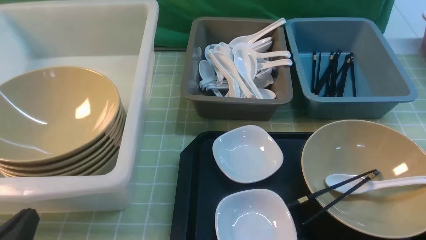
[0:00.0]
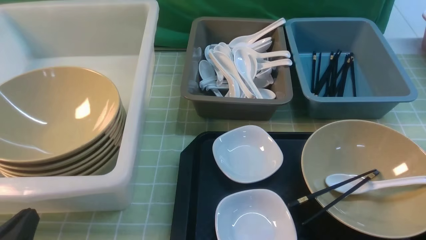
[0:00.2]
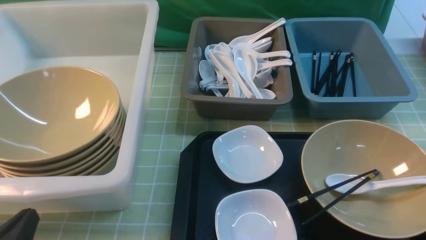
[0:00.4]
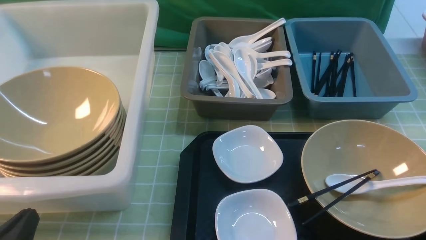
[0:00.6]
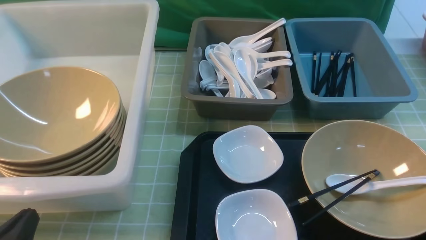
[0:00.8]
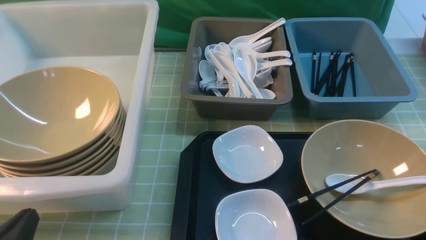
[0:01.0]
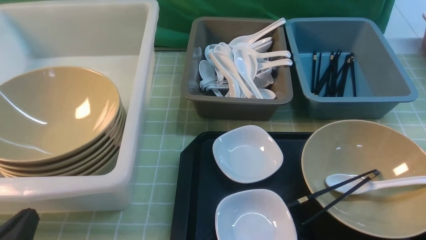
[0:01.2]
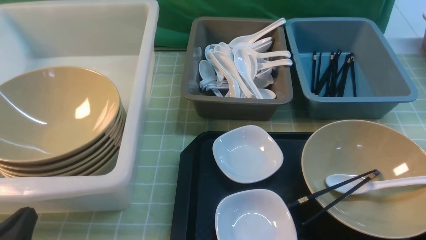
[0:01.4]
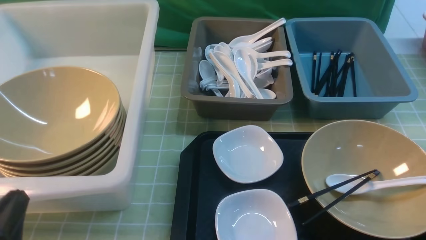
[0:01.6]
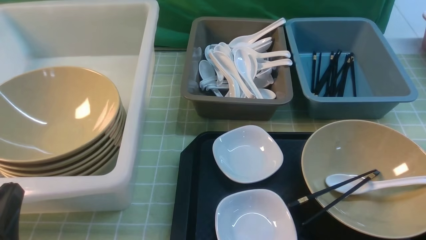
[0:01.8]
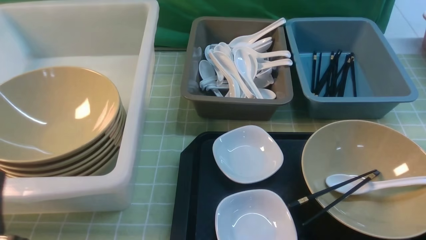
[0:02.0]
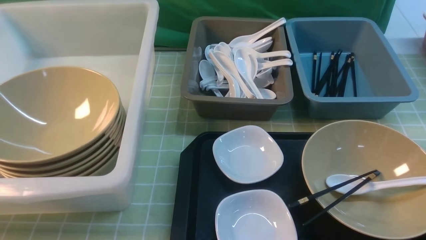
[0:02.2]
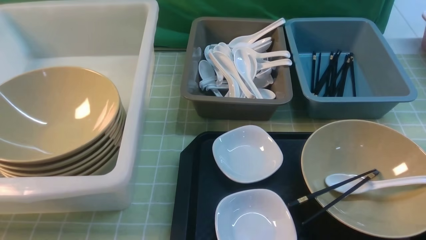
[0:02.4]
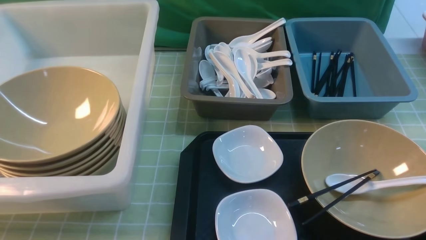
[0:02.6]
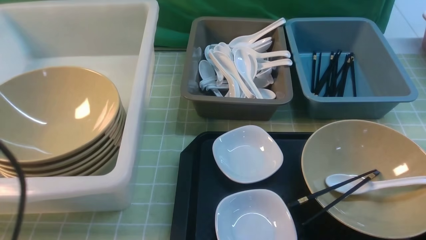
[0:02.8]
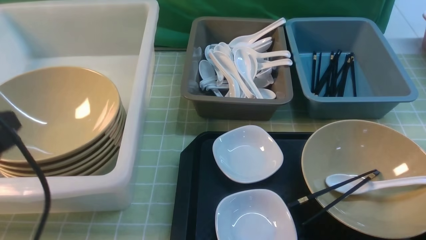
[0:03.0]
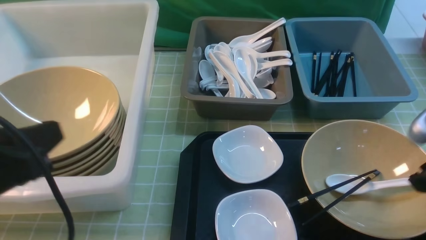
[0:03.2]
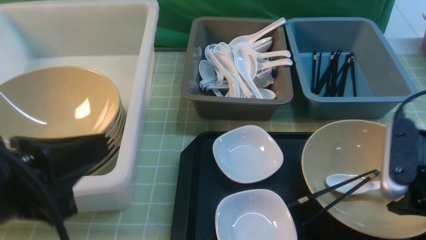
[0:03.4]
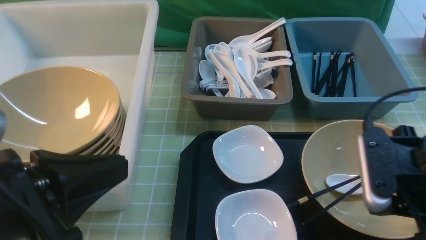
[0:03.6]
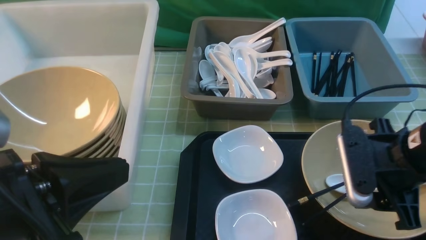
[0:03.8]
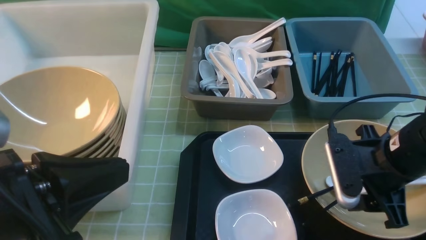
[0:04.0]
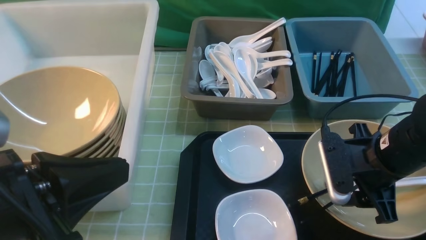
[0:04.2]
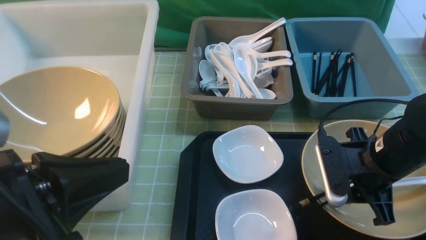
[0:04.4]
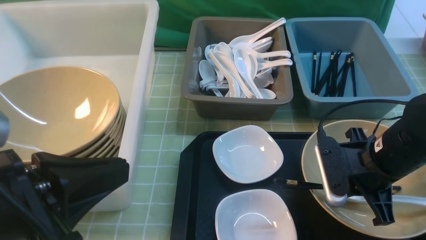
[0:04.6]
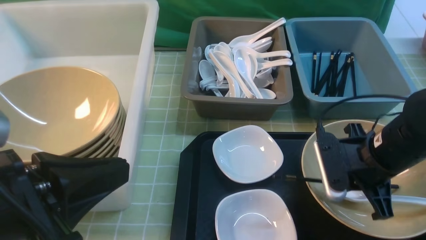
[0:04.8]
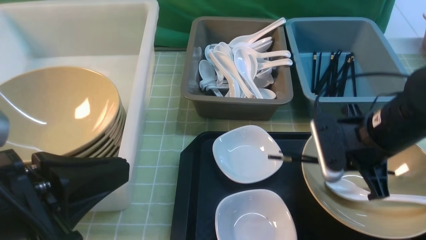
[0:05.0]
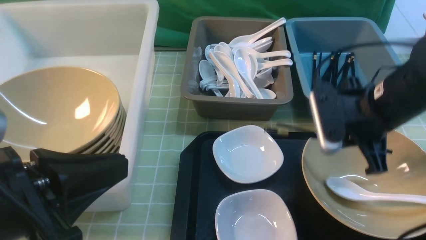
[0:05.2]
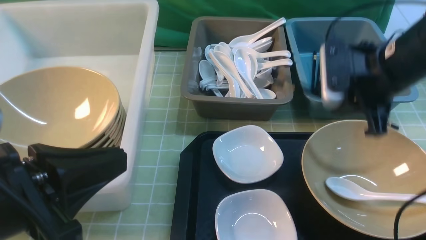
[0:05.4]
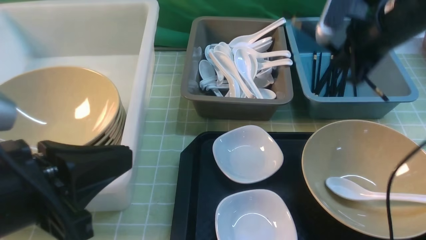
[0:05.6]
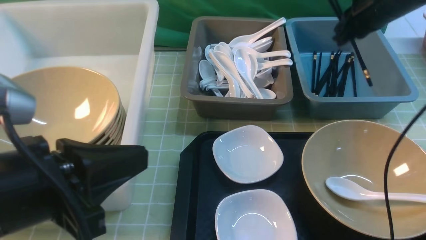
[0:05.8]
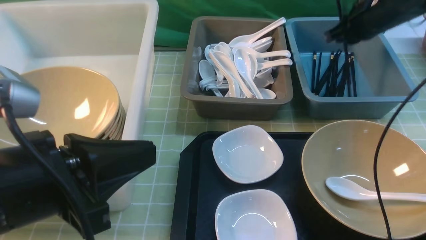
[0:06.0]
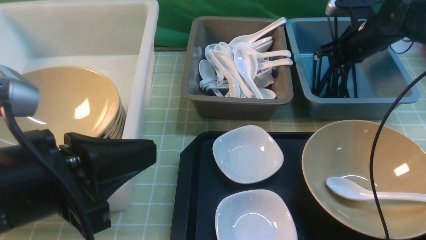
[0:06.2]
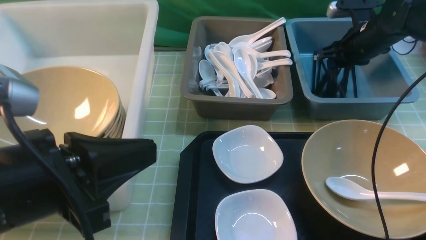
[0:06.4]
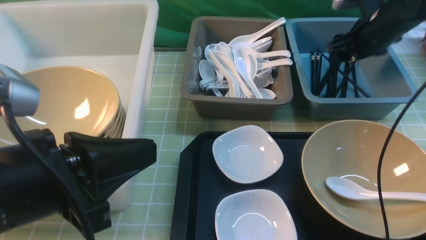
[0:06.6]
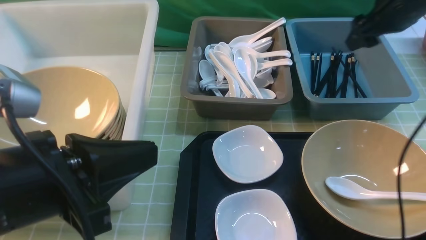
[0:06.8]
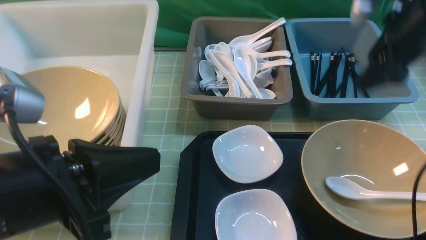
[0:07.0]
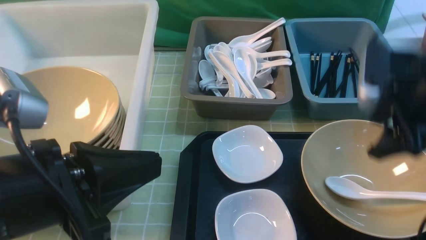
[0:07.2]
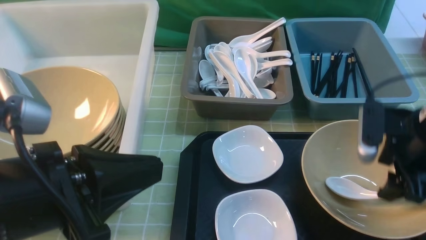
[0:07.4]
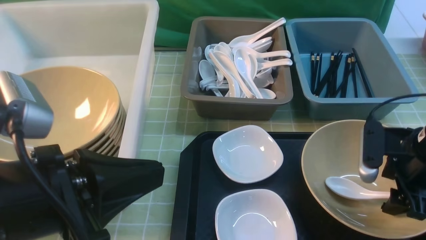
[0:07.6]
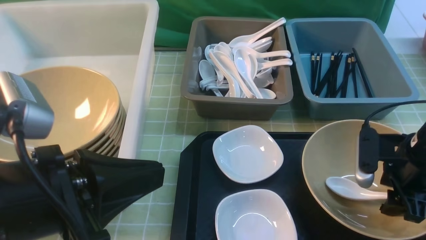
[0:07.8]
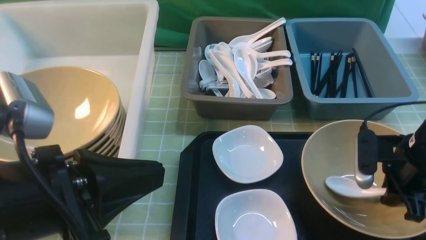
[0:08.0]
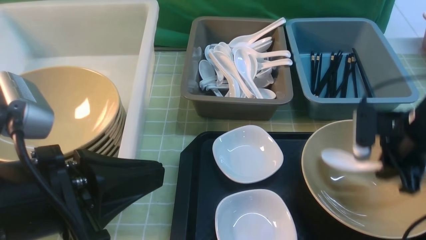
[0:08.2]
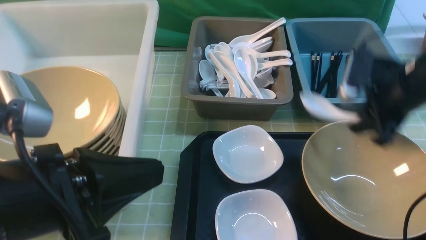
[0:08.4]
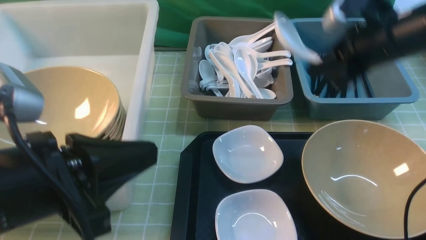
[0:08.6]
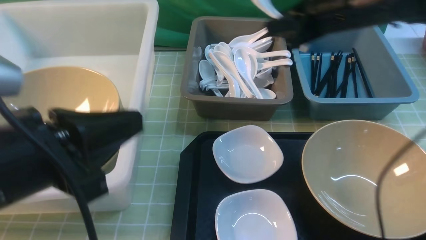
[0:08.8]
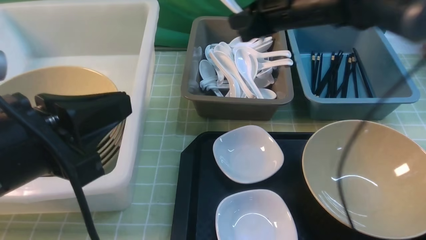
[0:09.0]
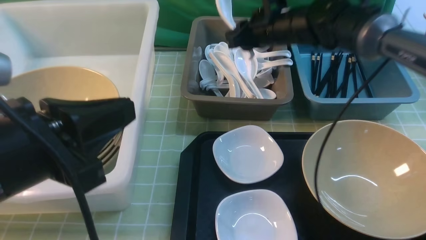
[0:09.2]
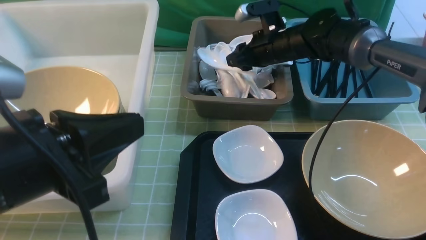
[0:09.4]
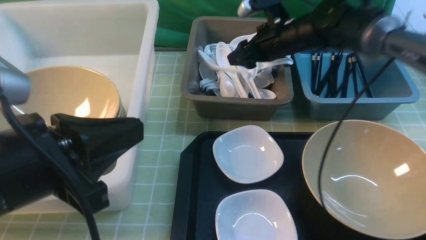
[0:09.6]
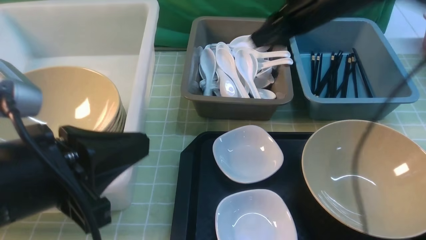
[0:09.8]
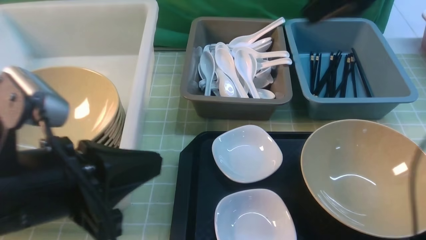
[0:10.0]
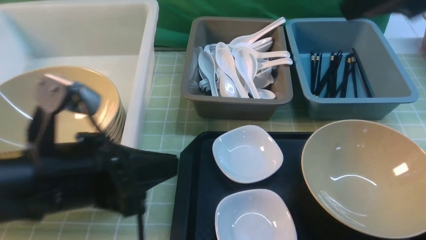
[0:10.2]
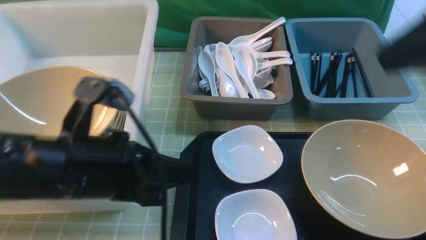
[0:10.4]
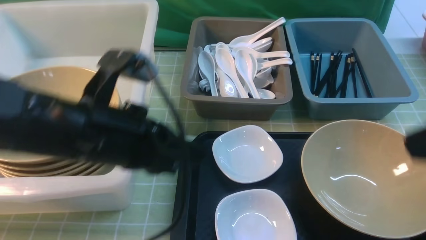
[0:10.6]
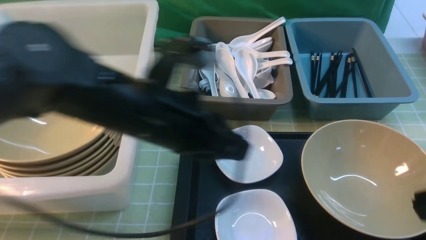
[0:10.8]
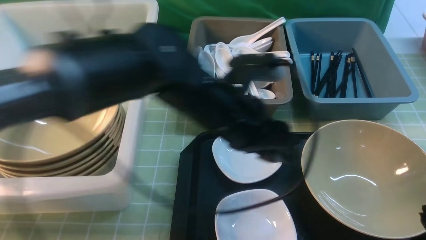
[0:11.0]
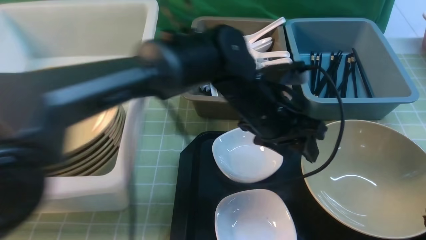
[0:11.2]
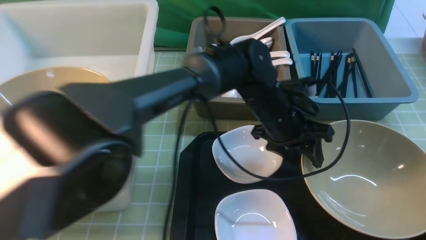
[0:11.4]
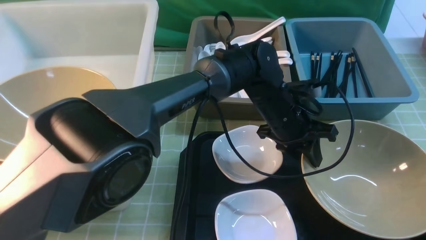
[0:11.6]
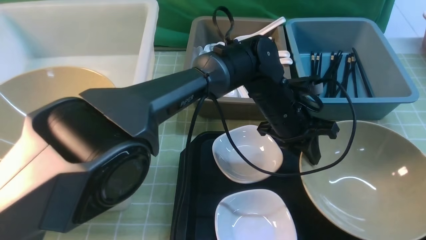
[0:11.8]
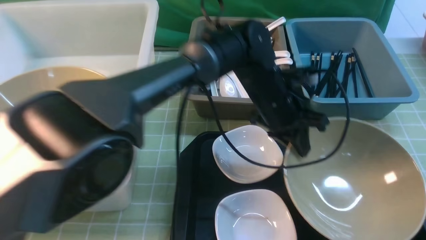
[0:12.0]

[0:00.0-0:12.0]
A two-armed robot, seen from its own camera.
Task of the whole recording: on green table put chopsticks spoon bowls plates into blue grey white boxes.
Step, 0.0 to 5.4 s: use the right arm to grab the chopsticks.
Step, 5.6 to 6.6 s: use the right arm to put the chopsticks into the small storage box on the right.
Step, 6.8 to 8.2 s: use the right arm to grab the soup spoon in the middle.
Step, 8.4 to 9.8 s: use the right arm to put the soup spoon into the small storage box in the middle.
0.0 to 1.6 s: The grippers move only a little.
1.6 to 3.0 s: The left gripper goes some 15 cm upward.
3.0 to 4.4 s: The left gripper goes some 5 cm to the right. Meanwhile the right gripper heads downward, to the left and forward, covering about 15 cm, and opens, then closes again.
4.4 to 6.0 s: The right gripper travels forward by roughly 25 cm.
6.0 to 7.6 s: The right gripper travels backward by some 20 cm, and opens its fingers.
7.6 to 9.0 s: The right gripper moves forward, to the left and upward, some 25 cm, and closes its fingers.
9.0 to 10.4 s: The left gripper ends up about 5 cm from where it was. The right gripper is displaced backward and upward by about 30 cm, and opens, then closes once more.
10.4 to 12.0 s: The right gripper moves backward and downward, approximately 15 cm. The left gripper travels to the right and forward by about 30 cm, and opens, then closes once more.

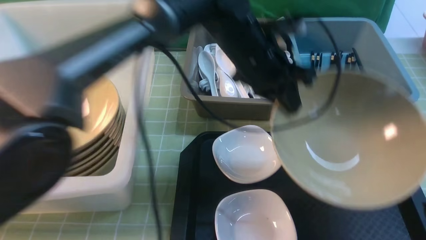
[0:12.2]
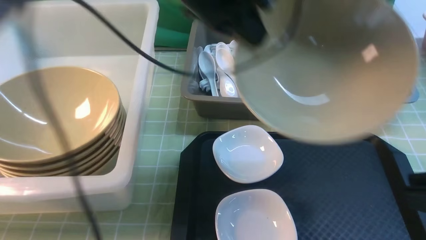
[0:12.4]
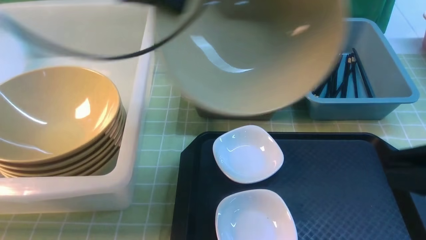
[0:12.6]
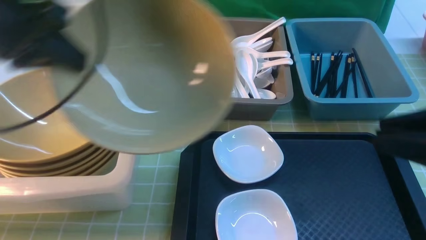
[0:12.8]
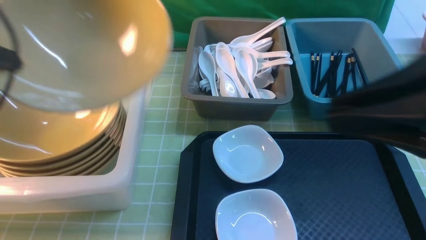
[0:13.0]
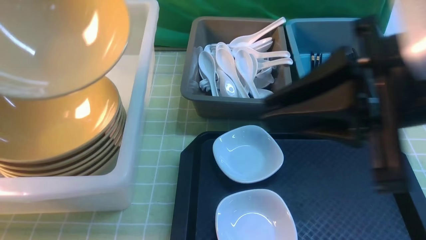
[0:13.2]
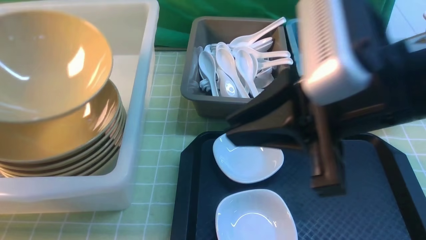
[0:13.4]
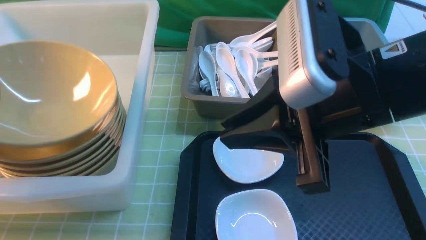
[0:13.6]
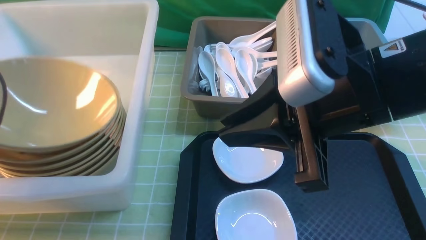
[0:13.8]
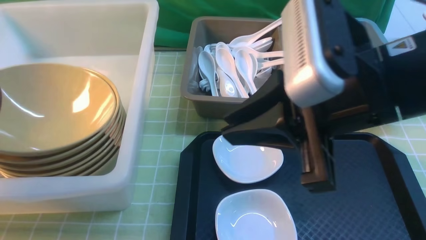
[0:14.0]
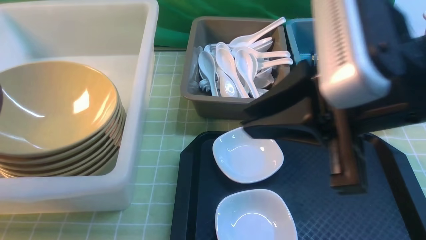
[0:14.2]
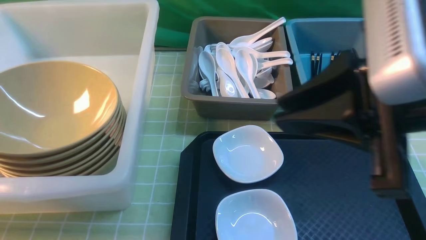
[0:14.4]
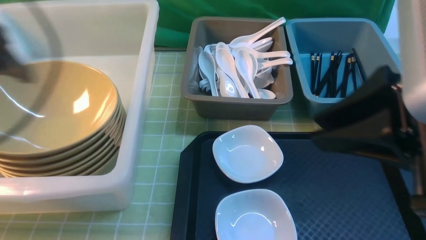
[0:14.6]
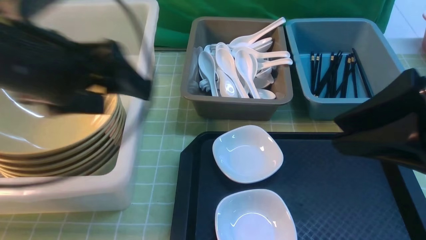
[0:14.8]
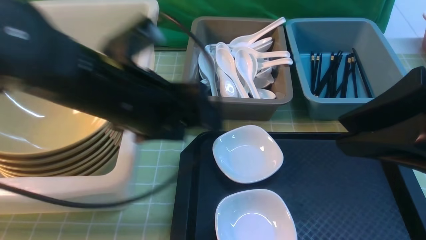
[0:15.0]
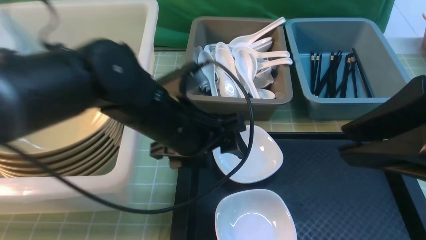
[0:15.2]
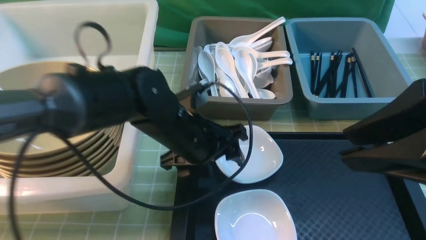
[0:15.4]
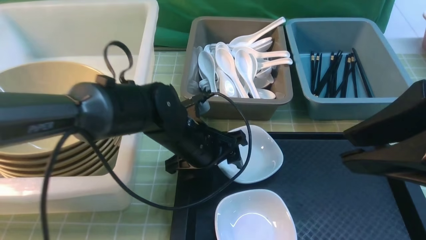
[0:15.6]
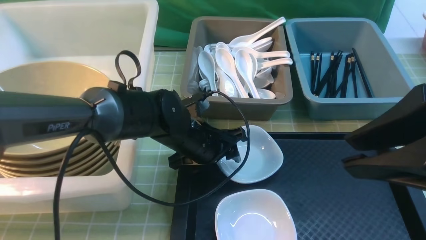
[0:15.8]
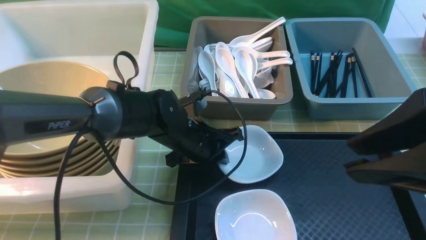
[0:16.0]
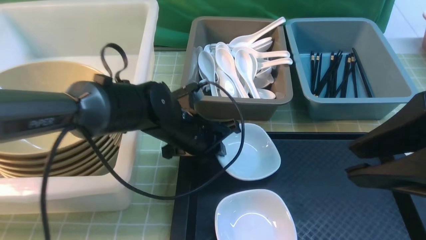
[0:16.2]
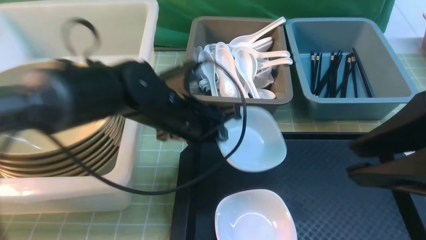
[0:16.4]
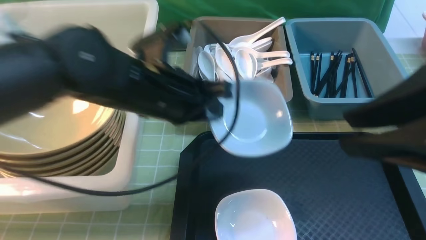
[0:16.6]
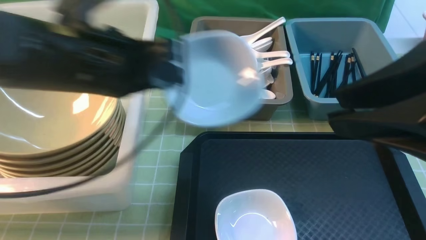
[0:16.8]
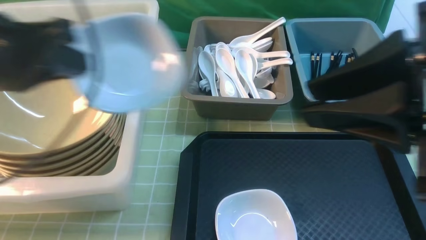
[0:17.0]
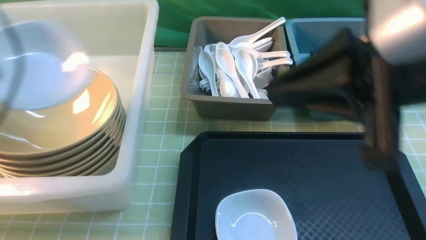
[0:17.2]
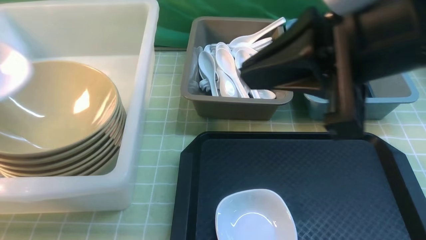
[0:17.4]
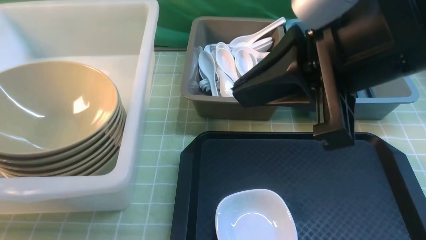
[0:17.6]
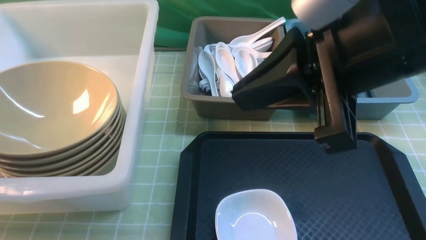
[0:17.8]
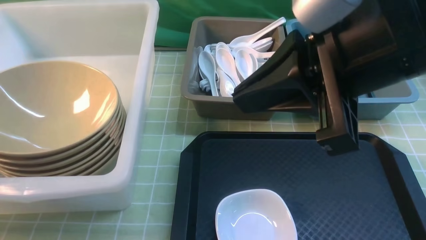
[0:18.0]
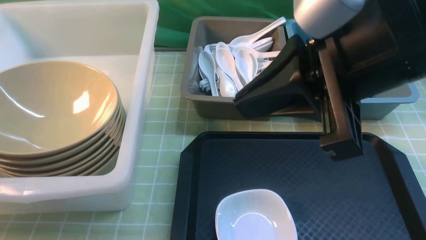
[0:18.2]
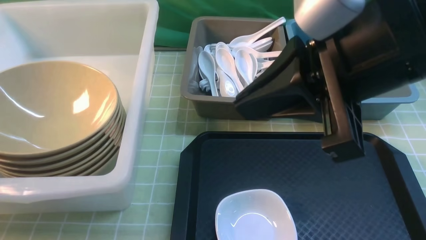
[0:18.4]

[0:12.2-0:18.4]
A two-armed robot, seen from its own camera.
Task of the whole recording: on green table put chopsticks spoon bowls plates into blue grey white boxes.
Step, 12.4 to 14.6 s: use the left arm to put the noodle bowl into the large storage box on the left.
Step, 14.8 to 16.6 s: use the left arm to grab the plate.
12.2 to 13.8 s: The right gripper is displaced to the left and forward by about 20 cm; the left gripper goes approximately 35 cm to the left.
13.8 to 15.4 s: The left gripper moves to the right, some 30 cm, and opens; the right gripper travels to the right and backward by approximately 10 cm.
15.4 to 16.8 s: The left gripper travels upward and to the left by approximately 20 cm, and closes up.
16.8 to 18.4 s: The right gripper heads to the left and forward, covering roughly 10 cm, and closes its fingers; the left gripper heads to the left, covering about 30 cm.
